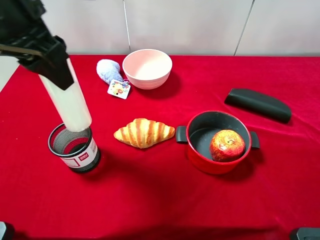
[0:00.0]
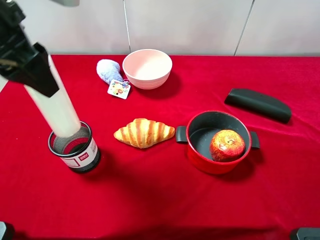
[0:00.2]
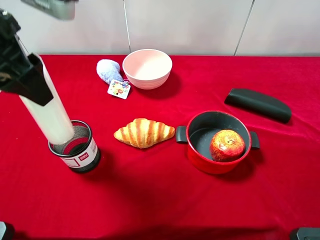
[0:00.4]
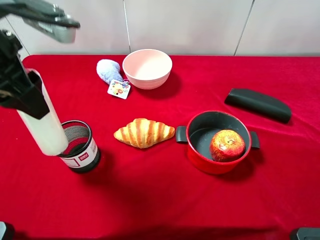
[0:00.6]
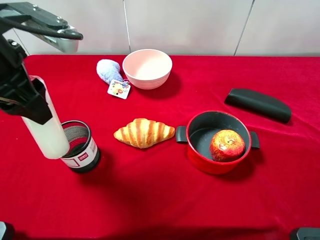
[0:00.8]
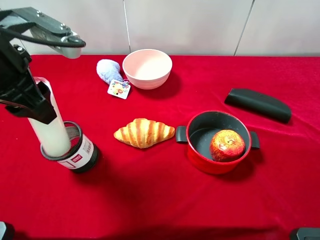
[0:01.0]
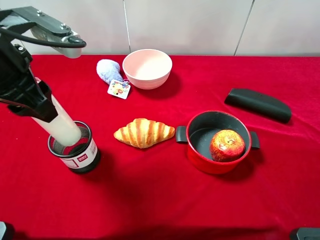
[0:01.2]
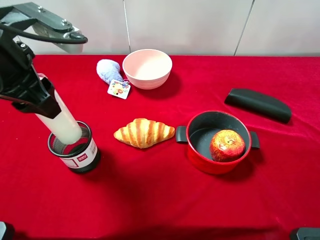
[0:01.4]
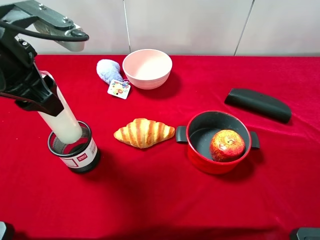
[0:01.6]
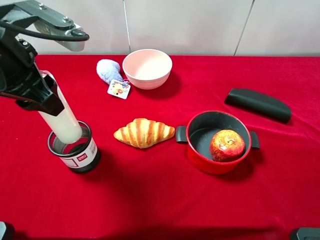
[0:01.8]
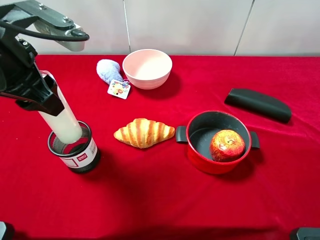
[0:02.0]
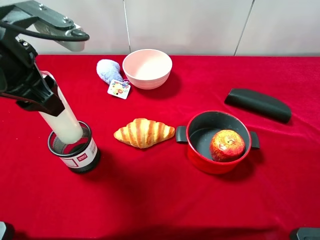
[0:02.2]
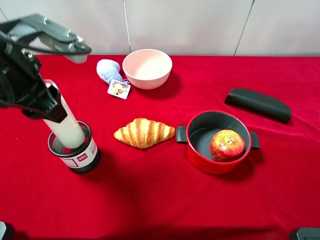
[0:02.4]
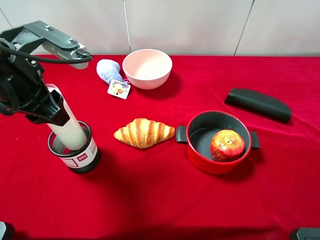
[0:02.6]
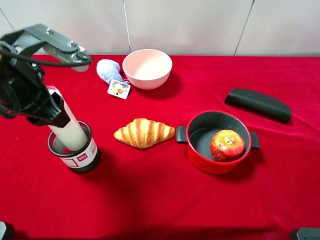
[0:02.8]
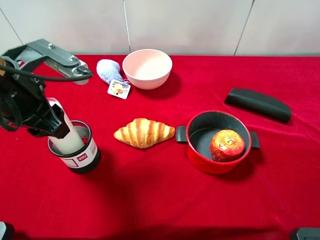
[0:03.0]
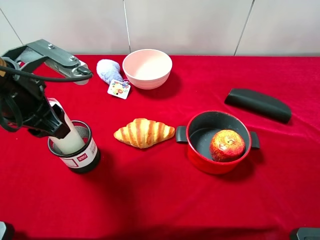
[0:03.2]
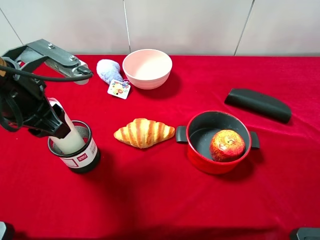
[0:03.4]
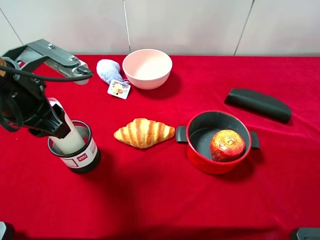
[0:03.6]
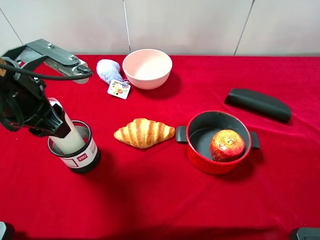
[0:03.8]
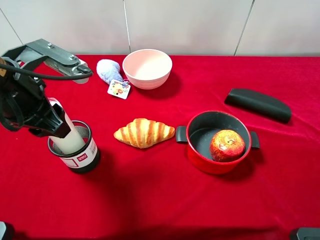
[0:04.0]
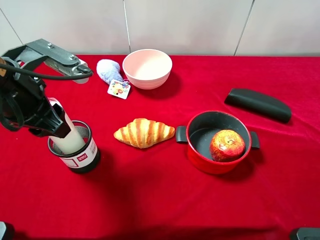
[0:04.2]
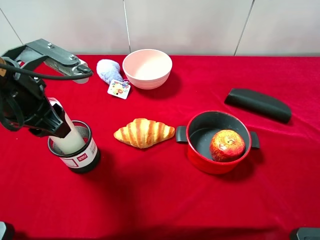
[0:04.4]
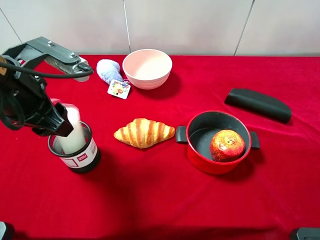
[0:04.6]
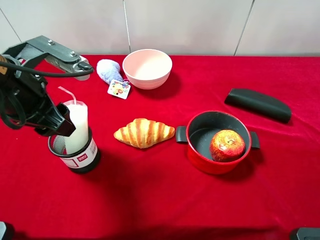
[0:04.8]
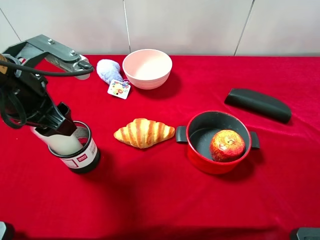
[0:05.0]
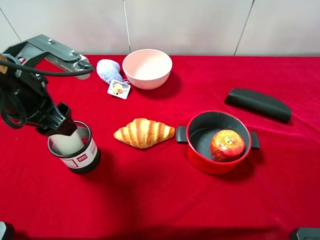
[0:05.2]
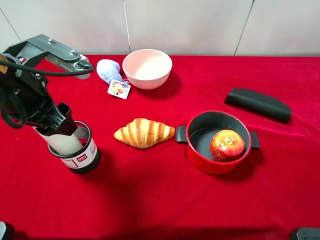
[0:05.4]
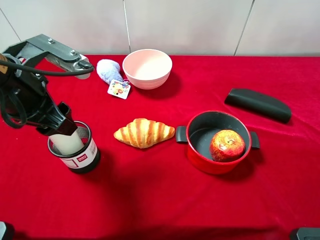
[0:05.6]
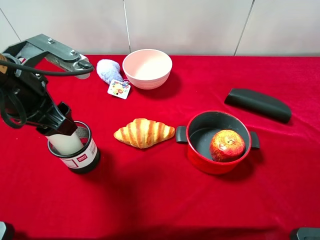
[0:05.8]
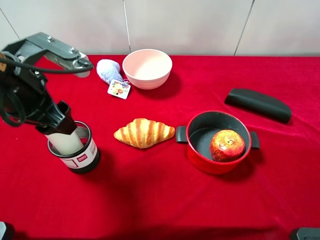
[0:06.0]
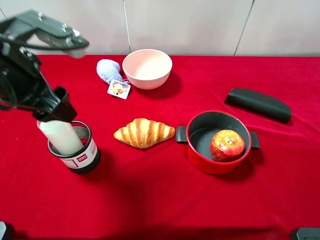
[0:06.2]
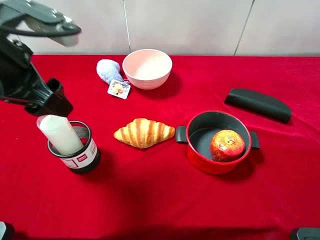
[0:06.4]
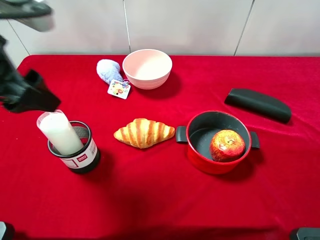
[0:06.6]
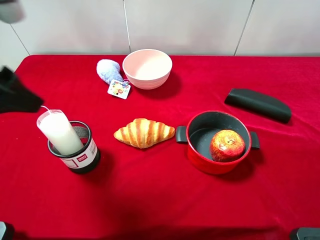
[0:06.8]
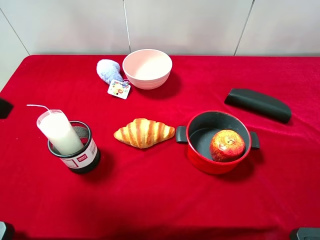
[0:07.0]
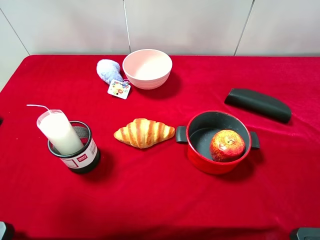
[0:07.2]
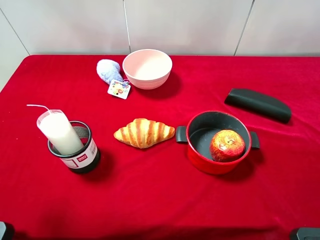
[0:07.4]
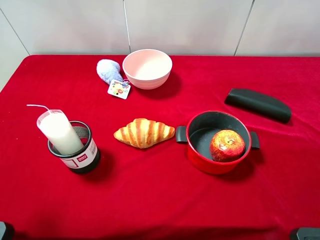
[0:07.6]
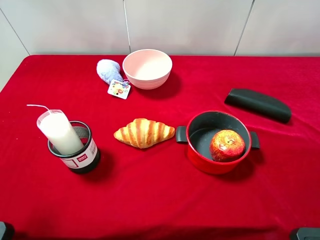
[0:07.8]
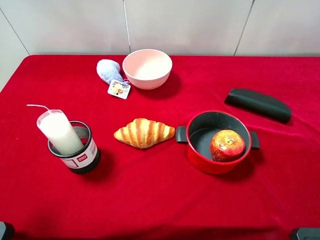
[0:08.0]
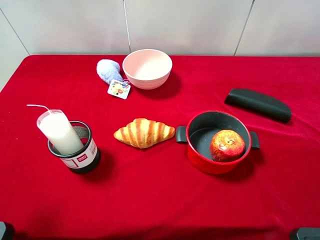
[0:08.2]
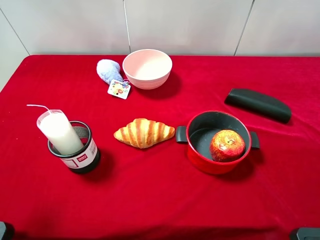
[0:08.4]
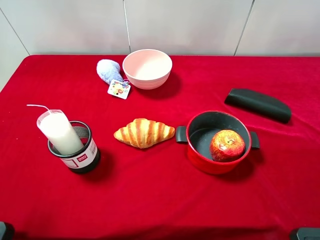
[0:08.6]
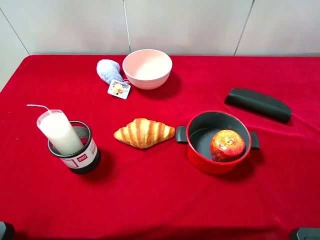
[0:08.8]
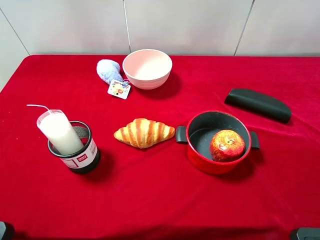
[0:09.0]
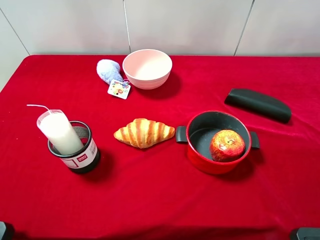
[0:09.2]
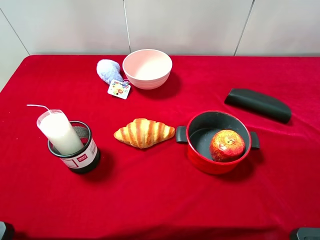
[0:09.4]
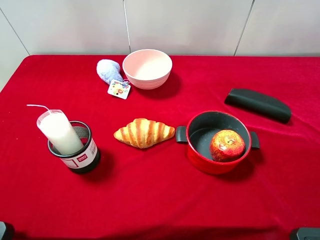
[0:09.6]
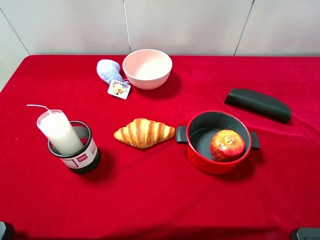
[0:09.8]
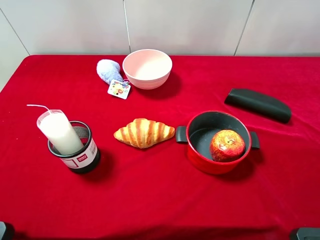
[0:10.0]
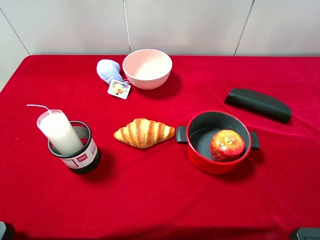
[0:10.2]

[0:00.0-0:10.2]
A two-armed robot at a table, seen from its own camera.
Task of the whole recording: pick up an item with a gripper and place it in a random container on the desktop.
0:00.0 to 0:01.4: The left gripper moves about 5 cm.
0:01.4 to 0:03.0: There are only small adjustments of the grippers.
0:03.0 to 0:05.8: Both grippers stay put.
0:05.8 to 0:07.2: The left gripper goes roughly 15 cm backward, upward and to the left, and opens its fingers.
